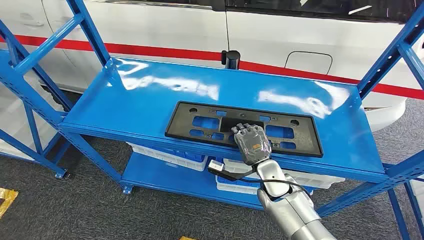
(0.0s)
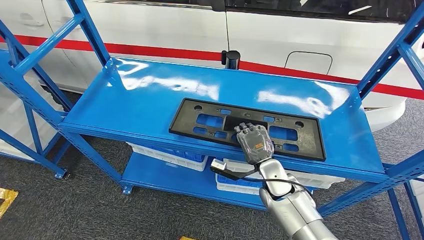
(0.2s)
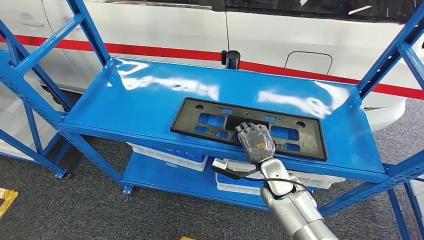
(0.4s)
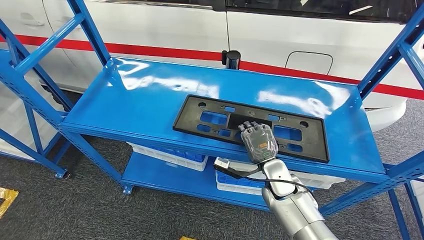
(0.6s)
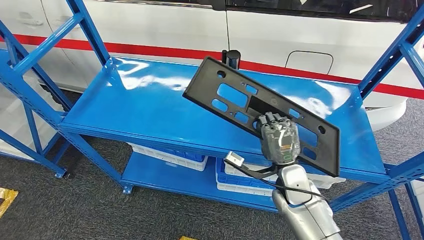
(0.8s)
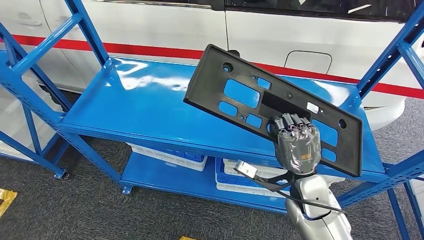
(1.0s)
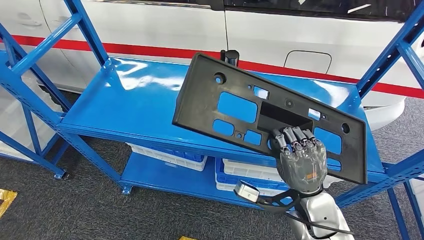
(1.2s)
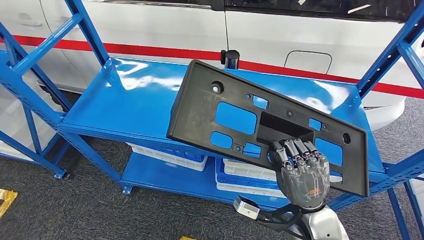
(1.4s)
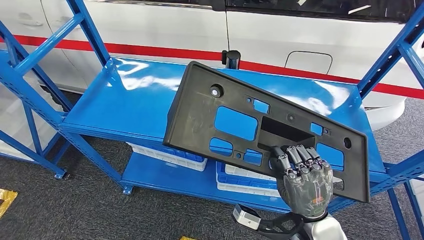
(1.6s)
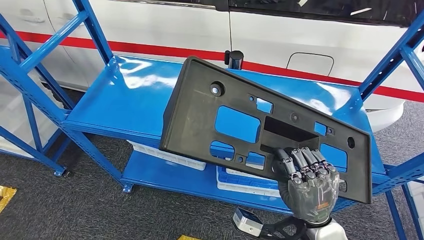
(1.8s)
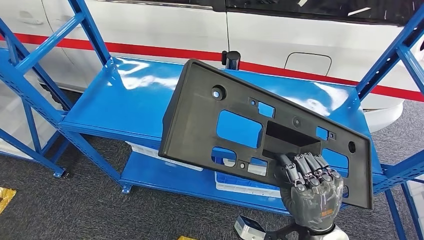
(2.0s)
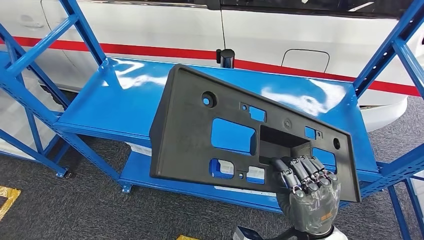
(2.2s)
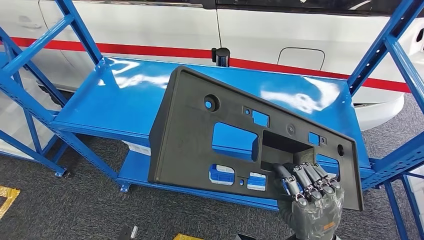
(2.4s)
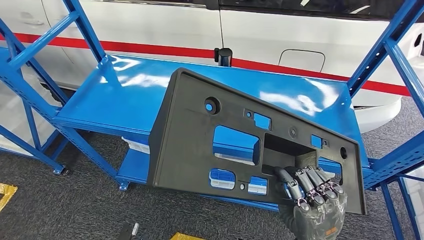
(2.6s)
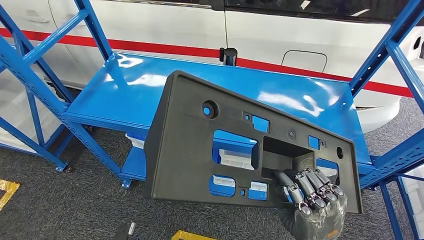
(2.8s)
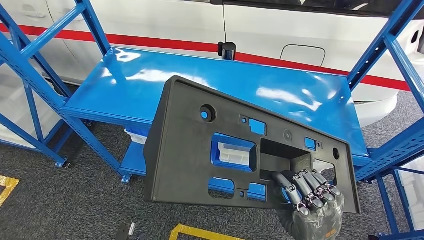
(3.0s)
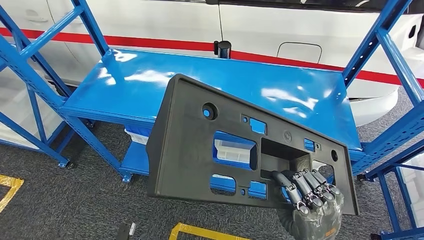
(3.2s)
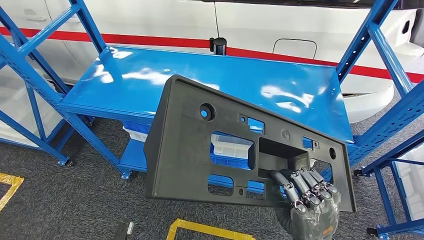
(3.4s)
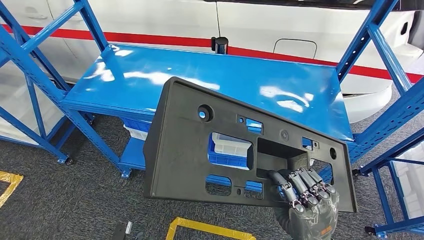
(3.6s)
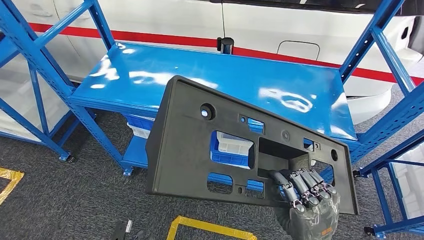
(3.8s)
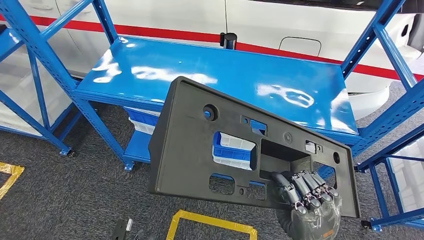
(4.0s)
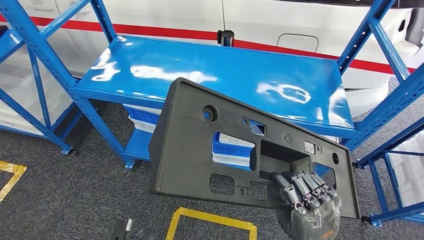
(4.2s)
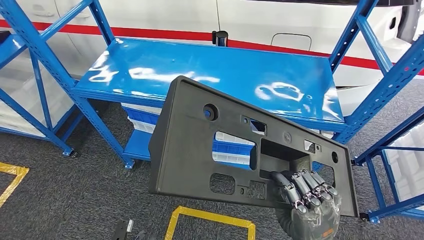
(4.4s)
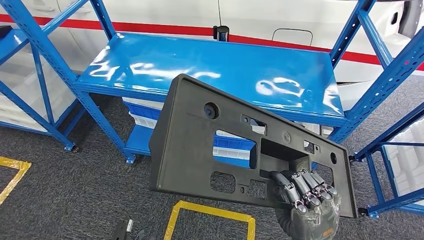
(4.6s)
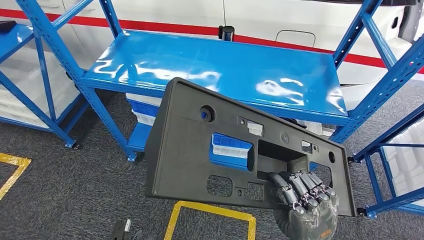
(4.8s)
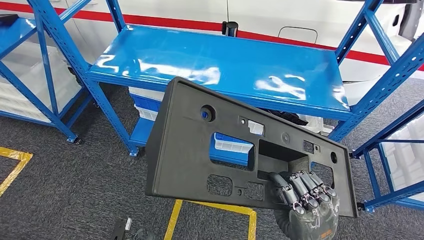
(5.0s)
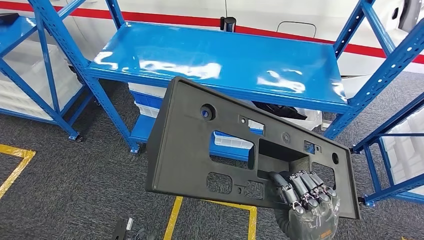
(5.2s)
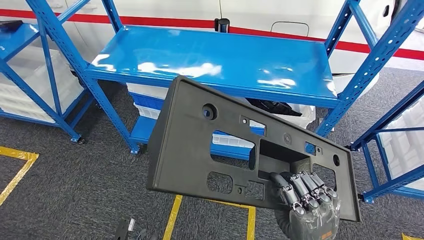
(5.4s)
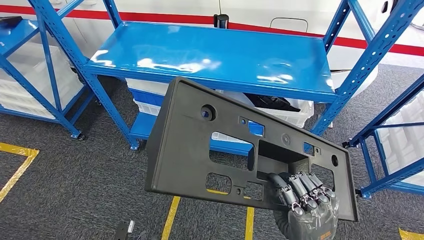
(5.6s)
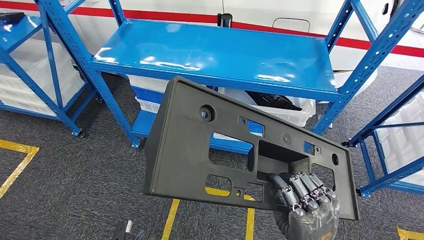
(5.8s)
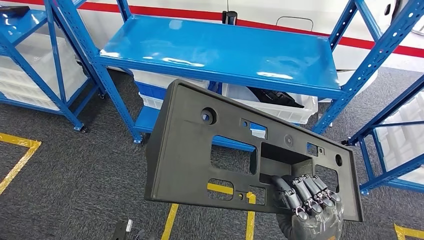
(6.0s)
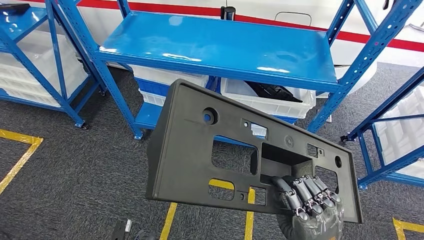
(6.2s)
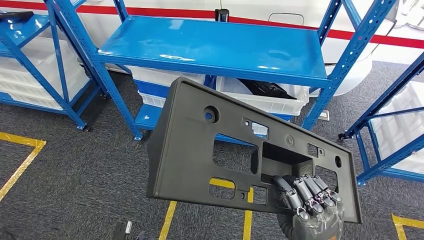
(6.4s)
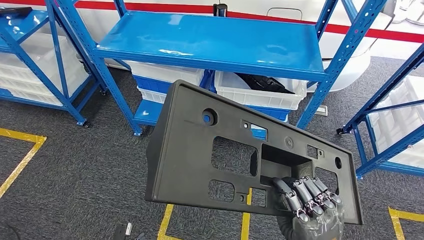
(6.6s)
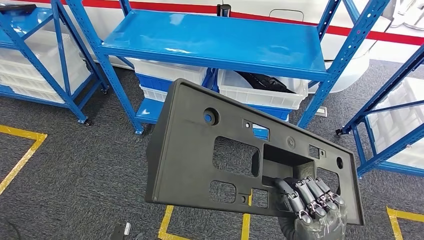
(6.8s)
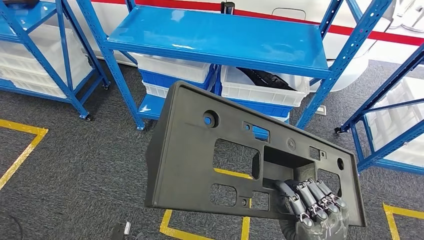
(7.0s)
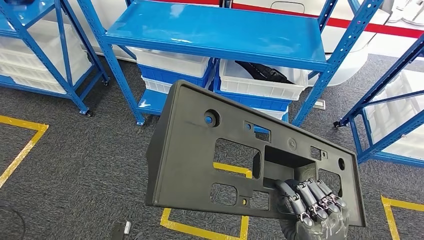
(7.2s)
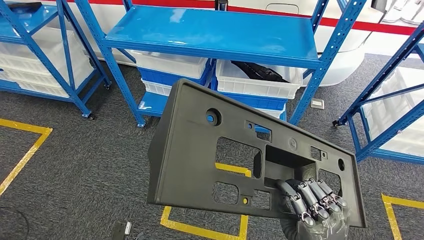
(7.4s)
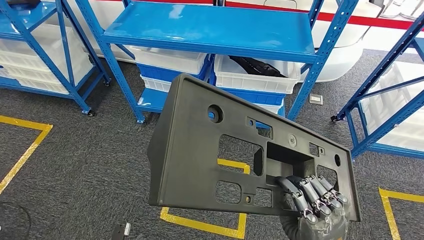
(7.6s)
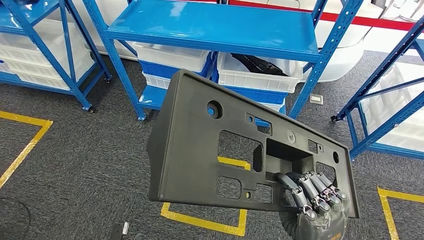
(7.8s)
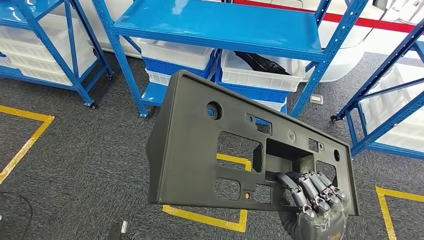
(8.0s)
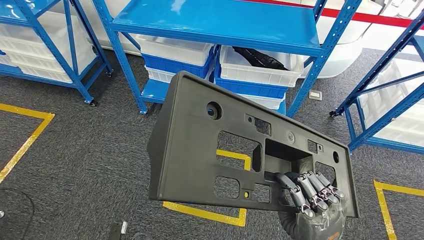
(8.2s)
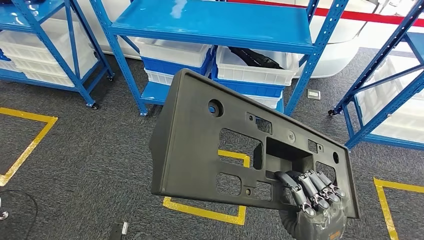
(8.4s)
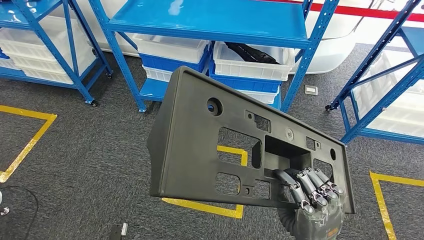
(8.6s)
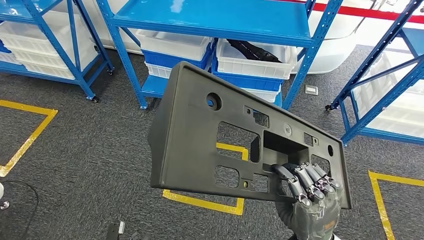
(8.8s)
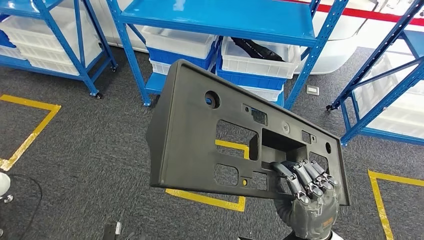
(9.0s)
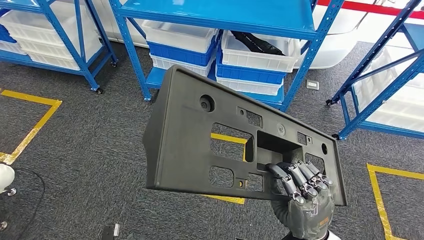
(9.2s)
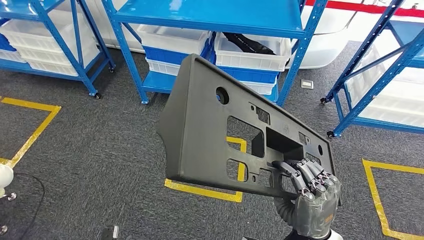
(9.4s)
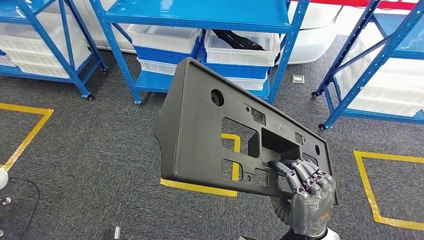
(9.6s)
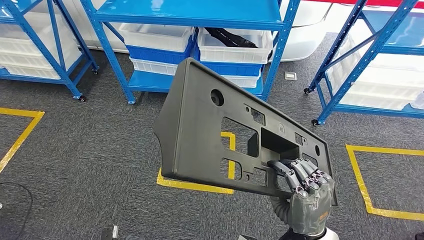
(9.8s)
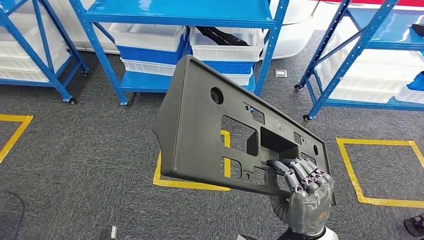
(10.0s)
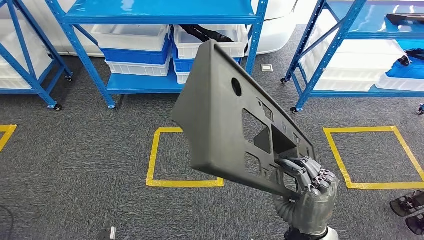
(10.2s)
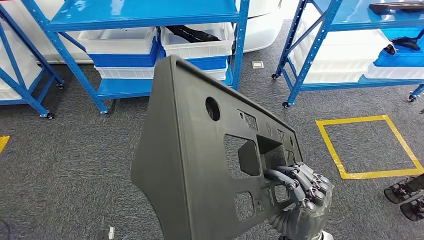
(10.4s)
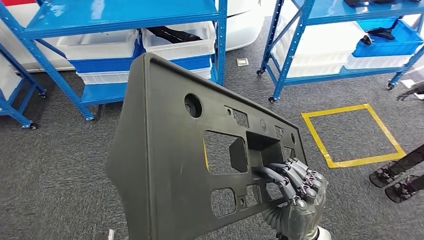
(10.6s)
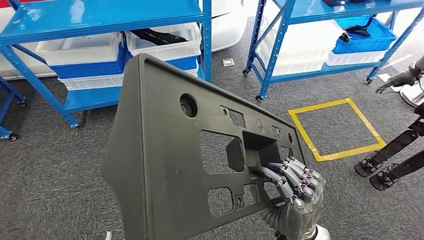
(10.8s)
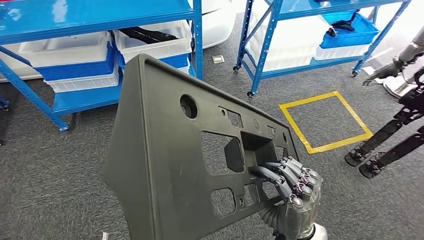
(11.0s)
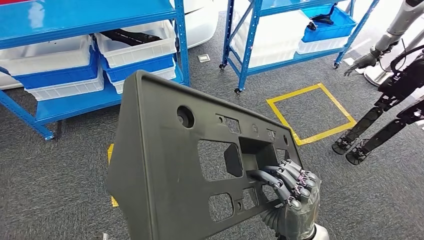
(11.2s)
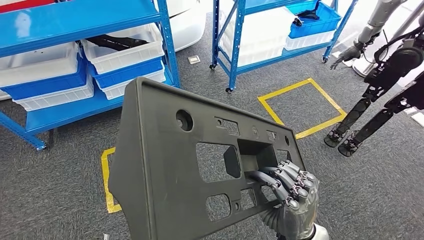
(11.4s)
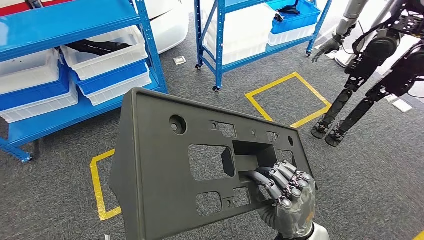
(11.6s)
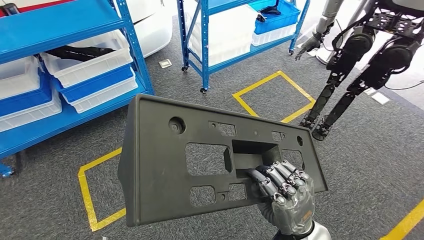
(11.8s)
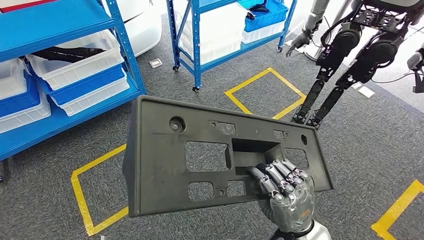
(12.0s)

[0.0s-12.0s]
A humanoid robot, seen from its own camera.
Step, 0.0s to 6.0s: Pick up the large material from the shelf.

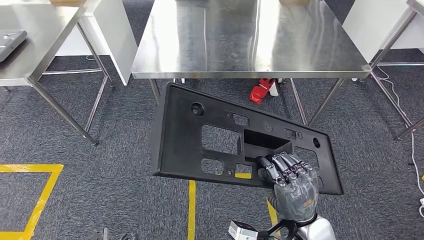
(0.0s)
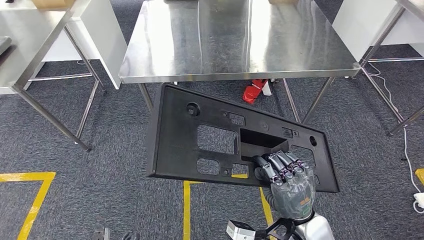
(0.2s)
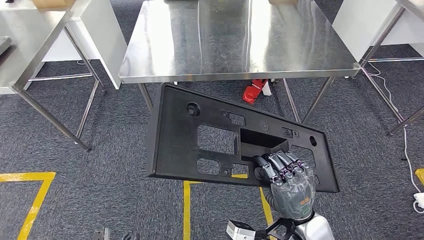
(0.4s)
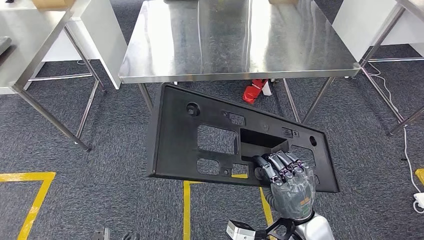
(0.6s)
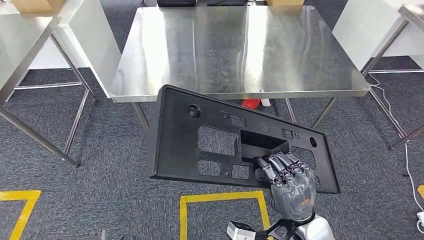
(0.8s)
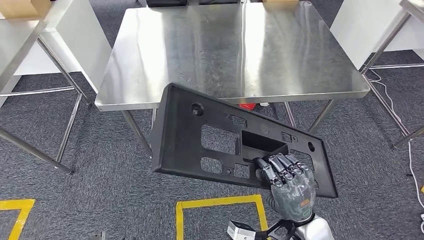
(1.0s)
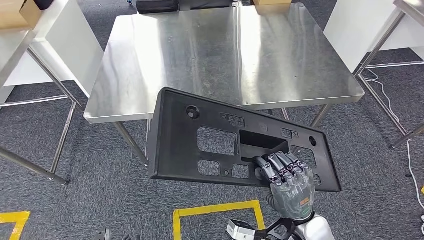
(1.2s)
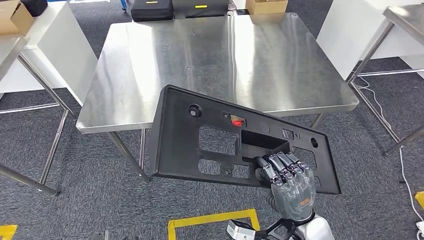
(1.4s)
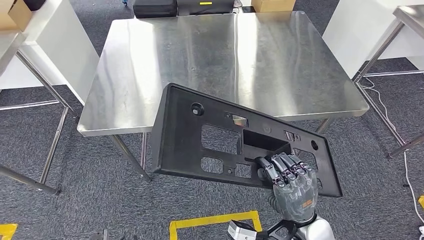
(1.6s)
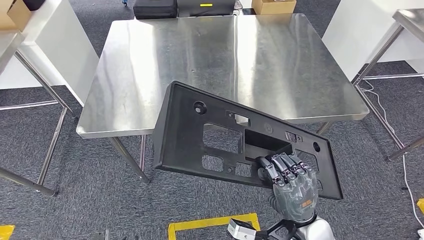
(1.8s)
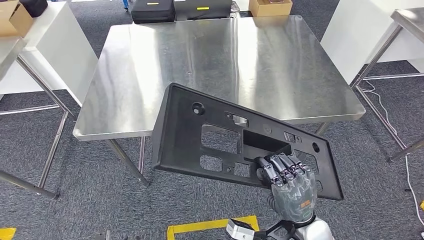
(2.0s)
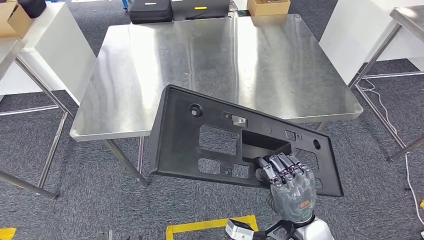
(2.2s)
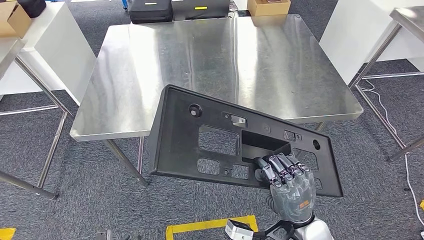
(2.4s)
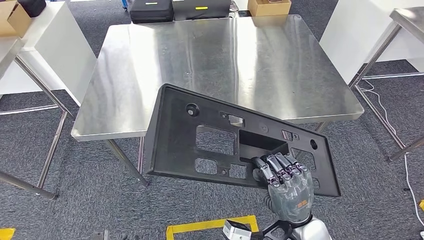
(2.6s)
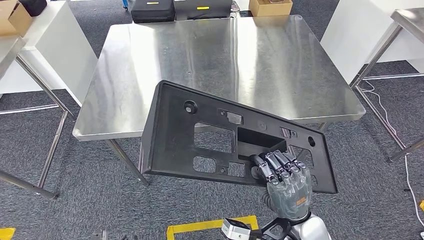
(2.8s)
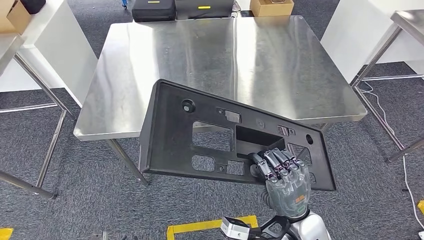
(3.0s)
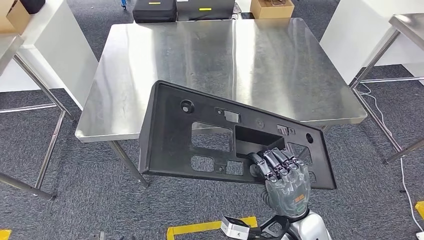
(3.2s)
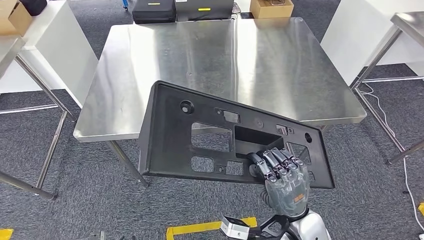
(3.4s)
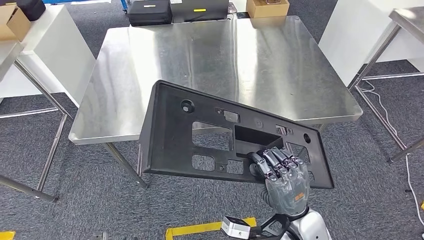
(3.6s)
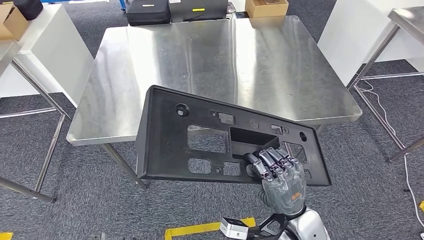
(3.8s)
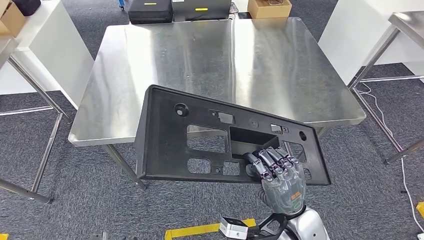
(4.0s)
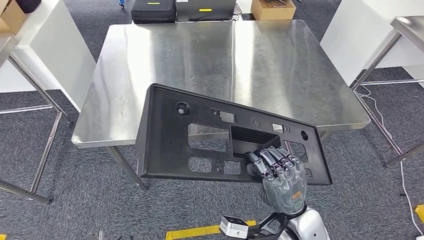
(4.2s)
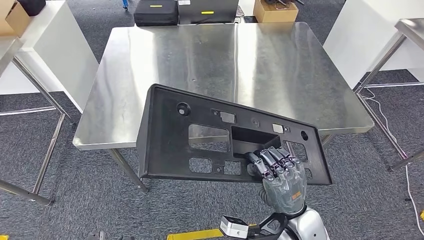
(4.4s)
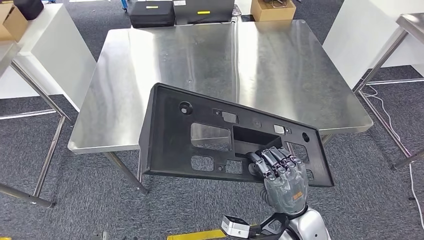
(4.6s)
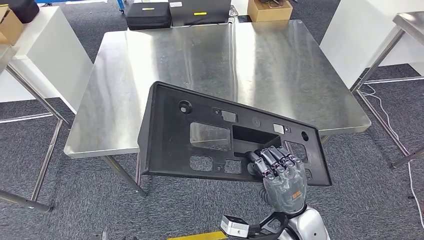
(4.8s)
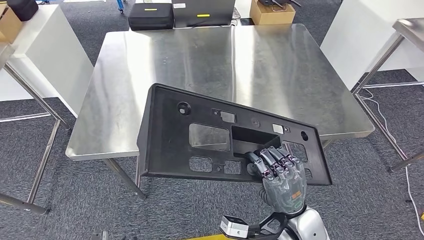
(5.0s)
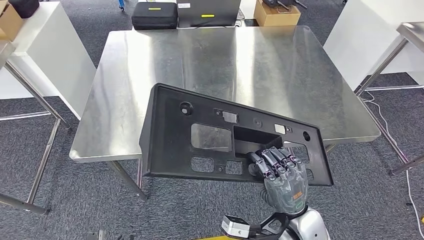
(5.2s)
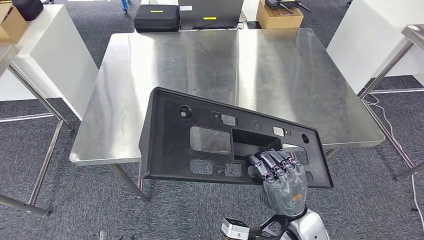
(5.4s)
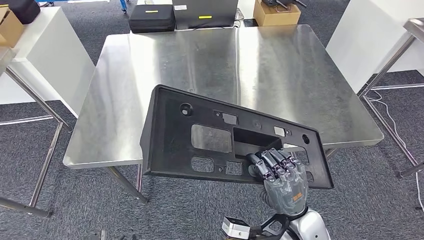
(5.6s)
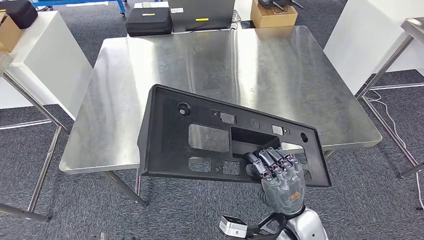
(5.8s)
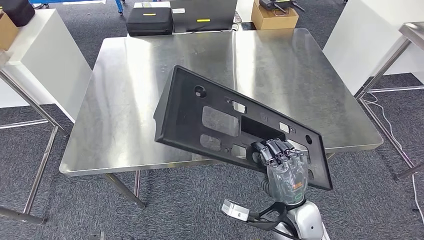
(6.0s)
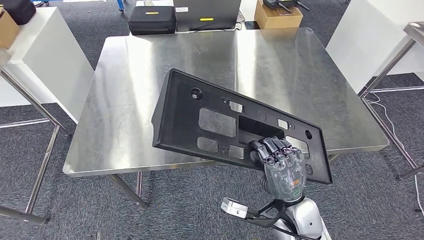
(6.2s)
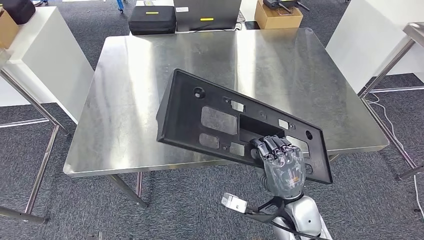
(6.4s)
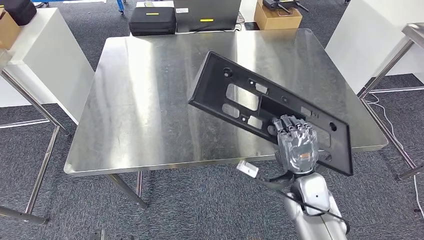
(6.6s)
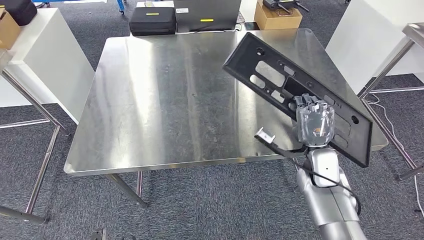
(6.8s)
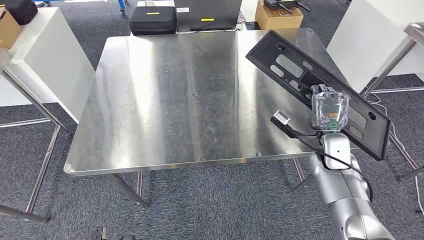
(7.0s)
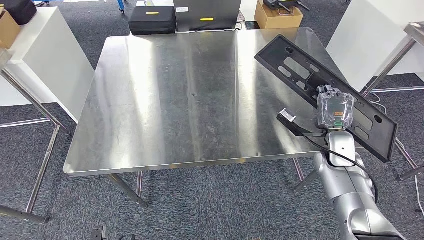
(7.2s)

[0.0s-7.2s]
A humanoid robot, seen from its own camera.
Step, 0.0s to 2.4s: Move the large material to the workbench.
1.4s to 2.8s: Both hands stay put.
